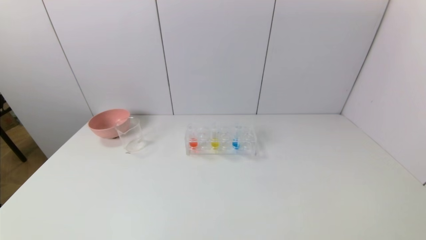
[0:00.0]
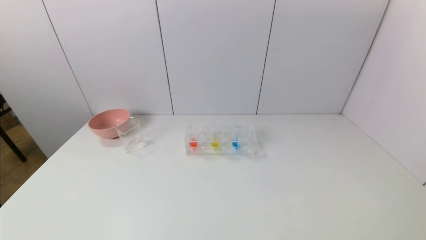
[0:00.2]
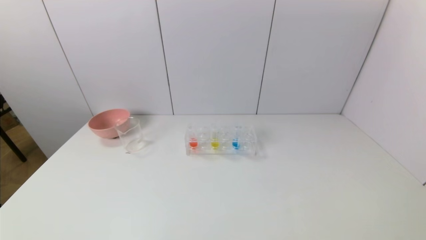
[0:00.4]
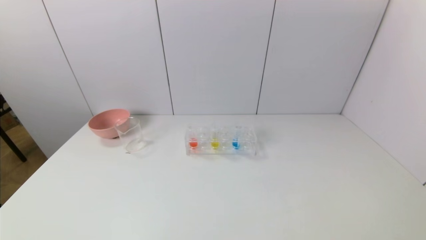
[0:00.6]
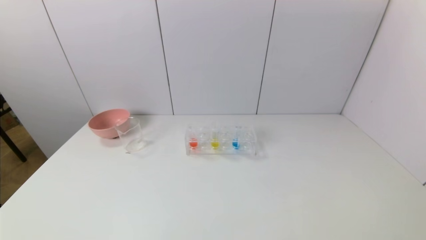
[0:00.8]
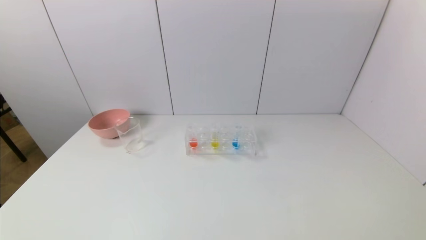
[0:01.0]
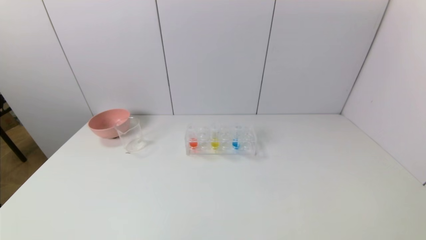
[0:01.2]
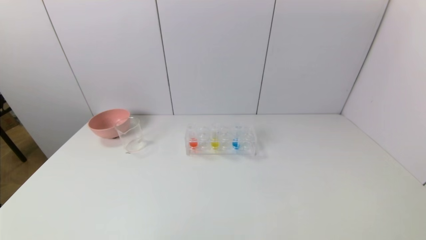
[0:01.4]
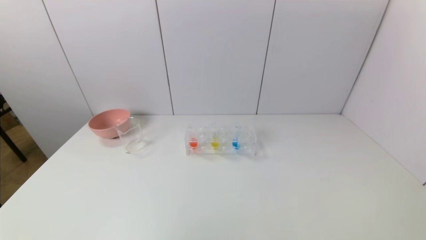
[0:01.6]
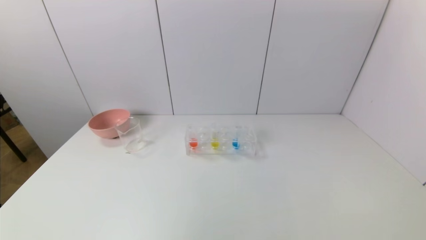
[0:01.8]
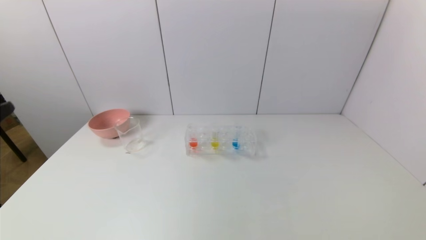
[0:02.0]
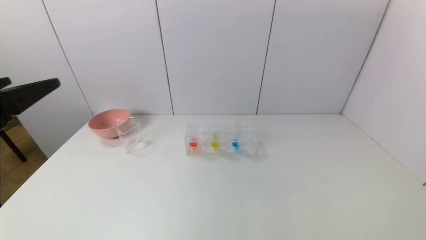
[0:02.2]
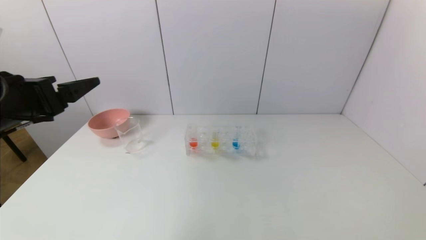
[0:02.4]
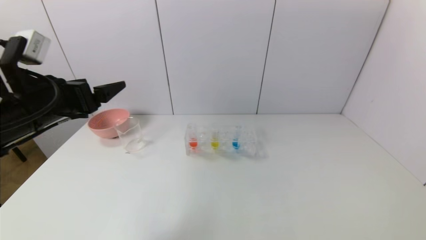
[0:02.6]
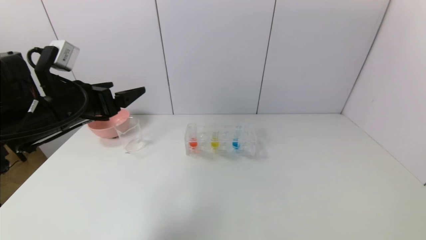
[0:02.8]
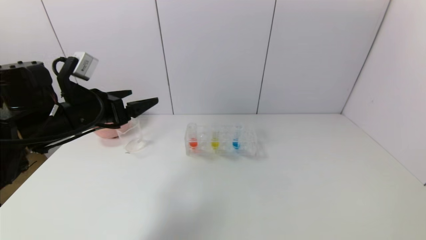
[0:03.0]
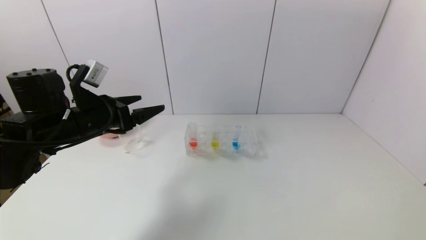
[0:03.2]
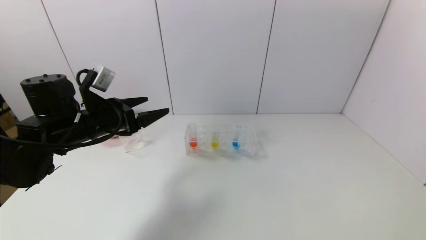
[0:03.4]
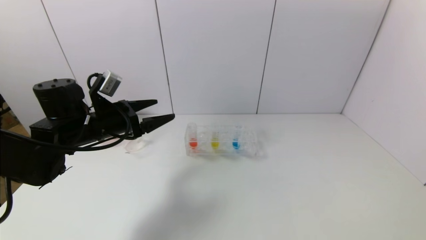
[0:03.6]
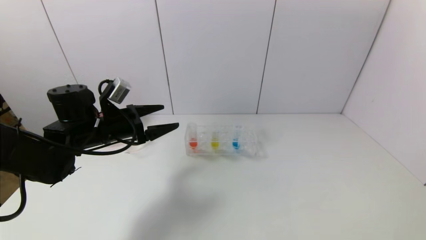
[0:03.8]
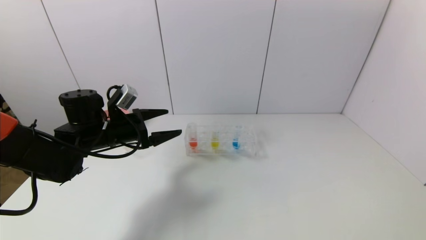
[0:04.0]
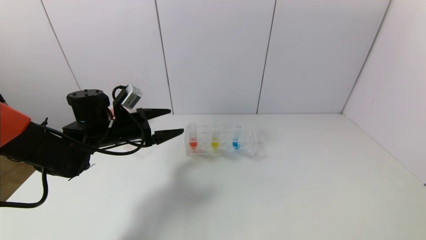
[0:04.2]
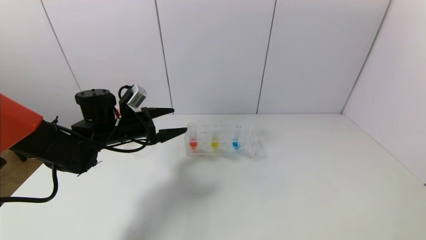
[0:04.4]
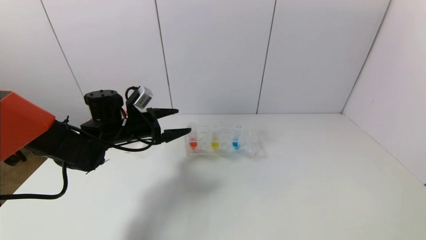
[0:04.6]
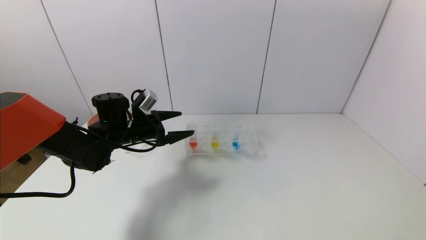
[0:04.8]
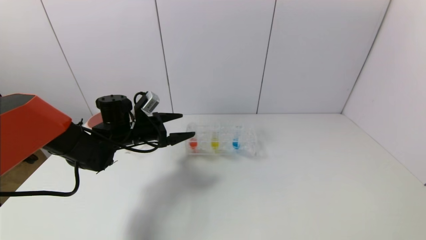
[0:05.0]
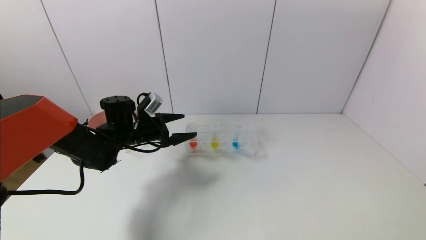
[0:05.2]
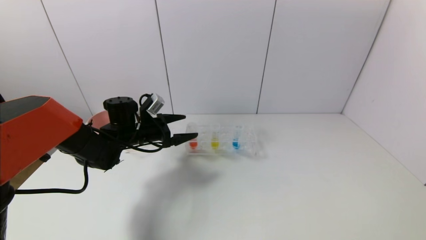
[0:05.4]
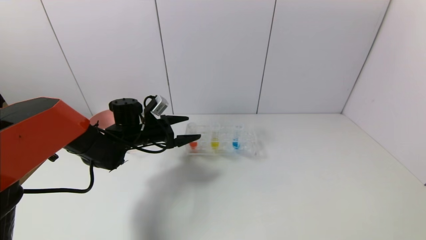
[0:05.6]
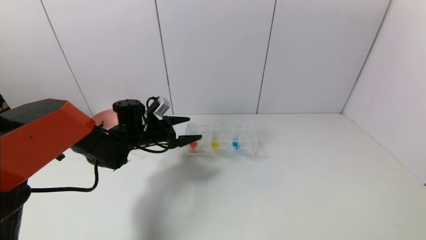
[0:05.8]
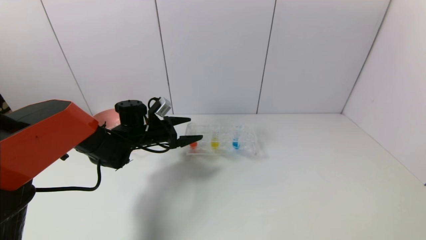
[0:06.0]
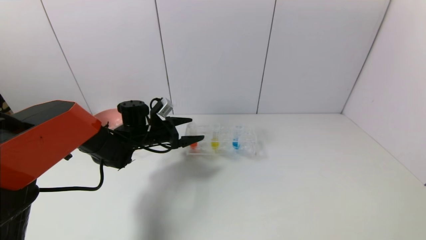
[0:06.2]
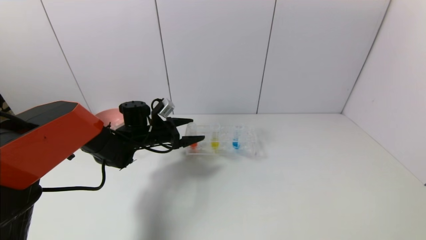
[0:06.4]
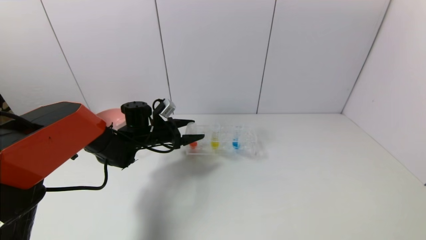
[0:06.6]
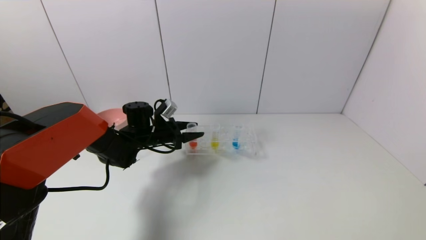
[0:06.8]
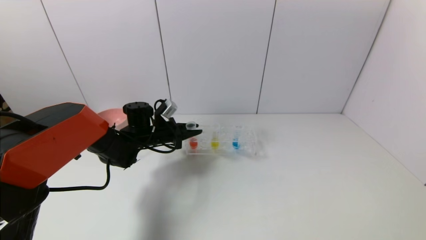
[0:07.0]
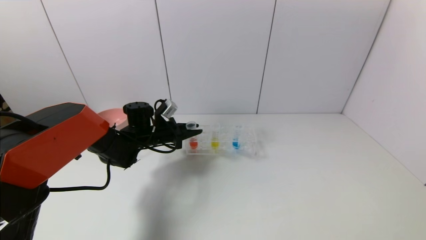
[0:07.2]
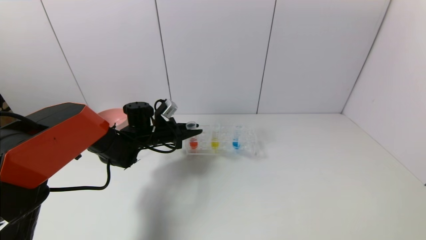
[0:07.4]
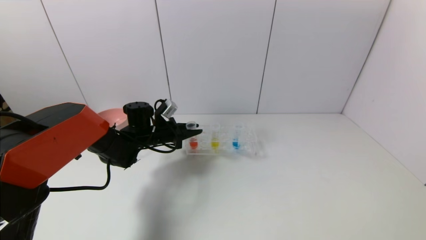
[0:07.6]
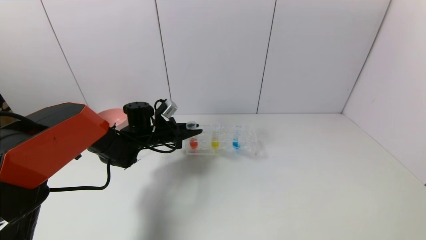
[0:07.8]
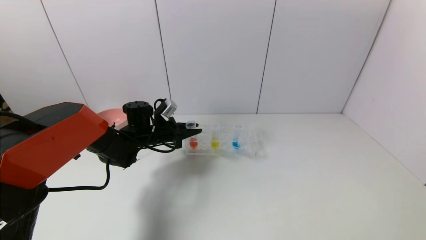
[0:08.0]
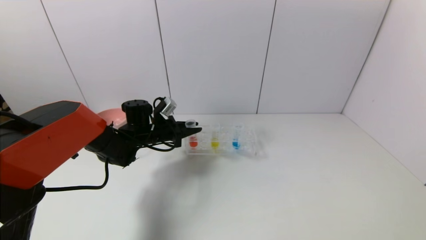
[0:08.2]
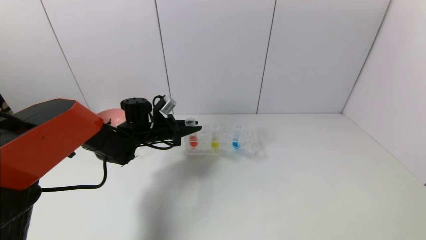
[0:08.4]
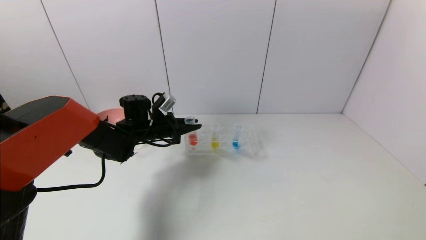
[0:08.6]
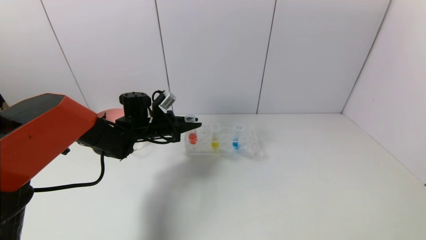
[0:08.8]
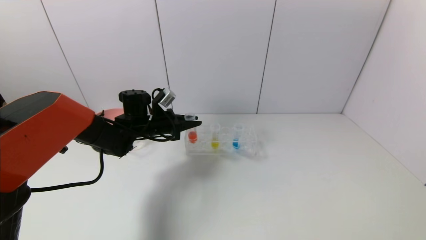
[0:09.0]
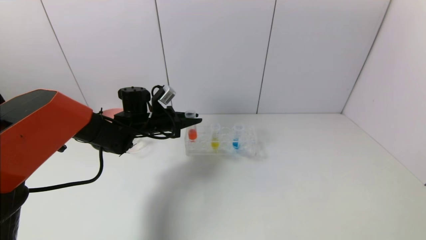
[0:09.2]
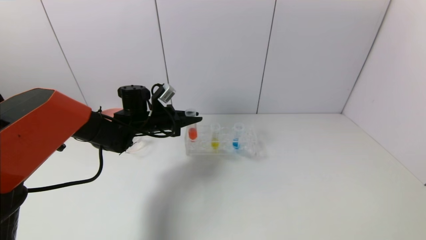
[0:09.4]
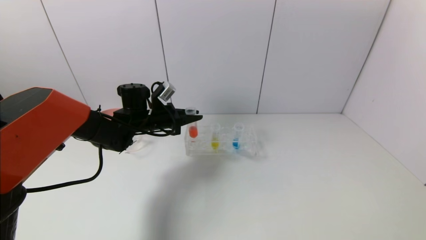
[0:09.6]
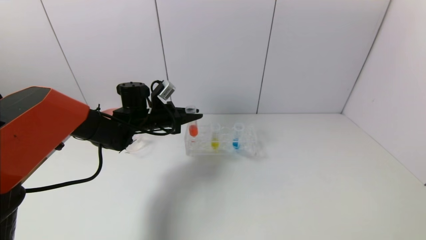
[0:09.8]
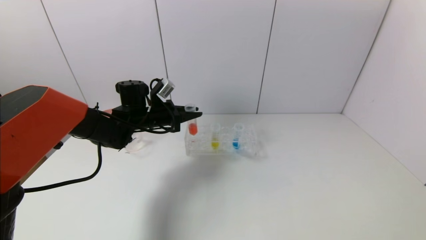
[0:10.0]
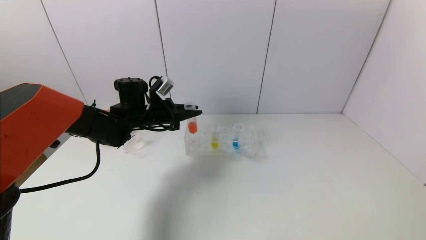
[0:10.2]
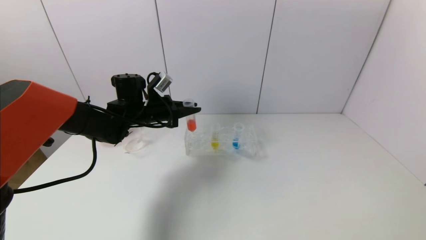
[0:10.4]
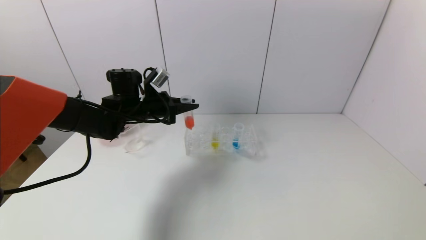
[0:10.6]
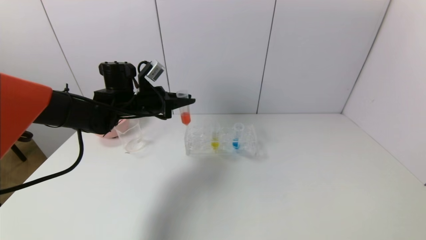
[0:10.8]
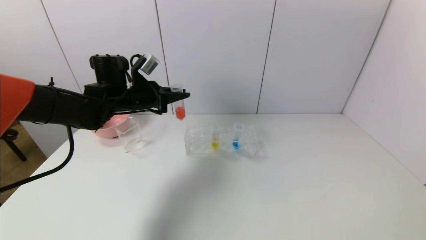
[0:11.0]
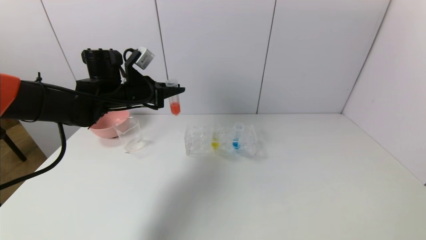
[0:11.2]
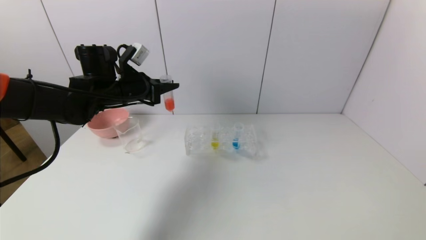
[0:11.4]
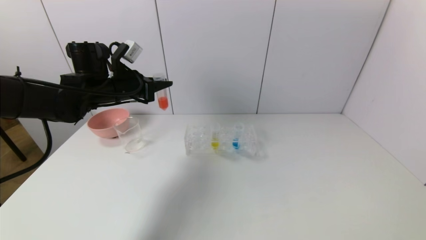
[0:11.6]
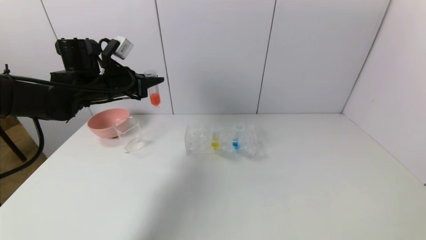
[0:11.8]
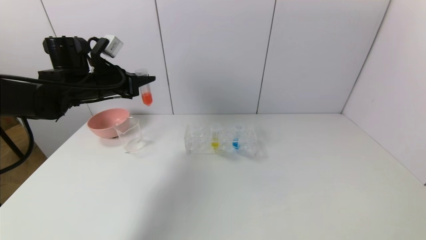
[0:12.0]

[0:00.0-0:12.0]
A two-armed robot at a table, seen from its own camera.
Task of the whole recording: pick up the test tube with yellow pigment and the test tube with red pigment by grippers and pour them into the beaker.
Step, 0:00.0 to 0:07.2: Grasp the red reagent with the left gripper.
0:01.6 to 0:03.0: The left gripper heads forward, covering approximately 30 cm.
0:03.0 to 0:04.4: The left gripper is displaced forward and downward by approximately 10 cm.
0:04.4 to 0:06.0: The left gripper moves forward, approximately 5 cm.
0:06.0 to 0:07.6: The left gripper closes up.
0:07.6 to 0:09.0: The grippers stay close to where they were, moving slightly.
0:09.0 to 0:10.4: The grippers stay close to where they were, moving slightly.
0:10.4 to 0:12.0: The left gripper is displaced to the left and upward by roughly 10 cm.

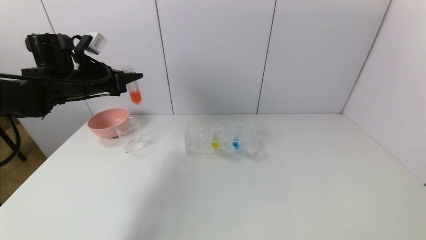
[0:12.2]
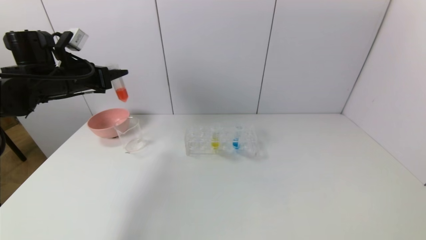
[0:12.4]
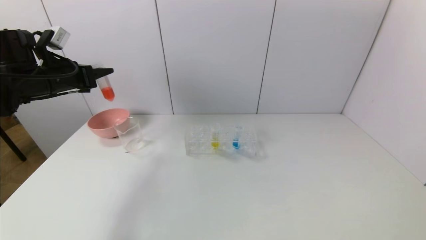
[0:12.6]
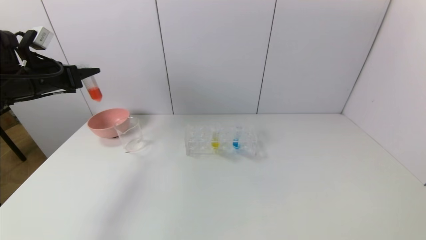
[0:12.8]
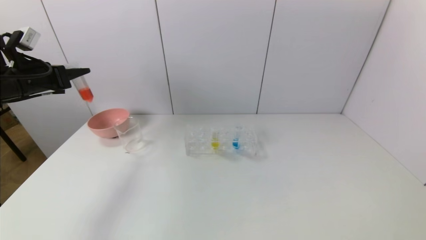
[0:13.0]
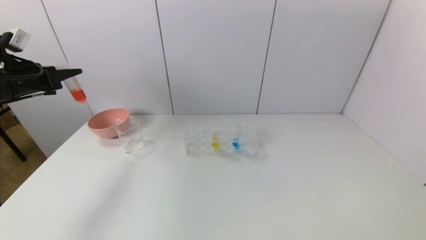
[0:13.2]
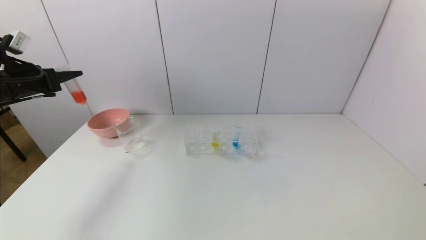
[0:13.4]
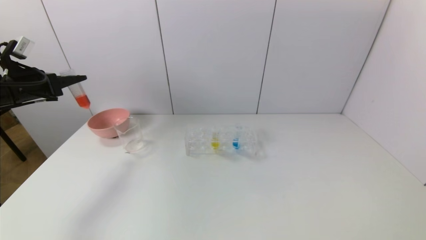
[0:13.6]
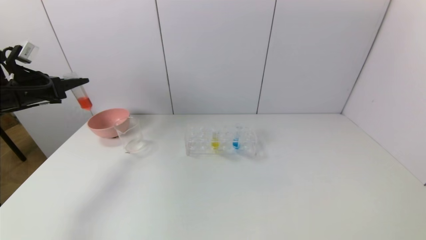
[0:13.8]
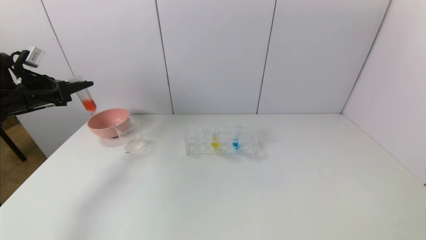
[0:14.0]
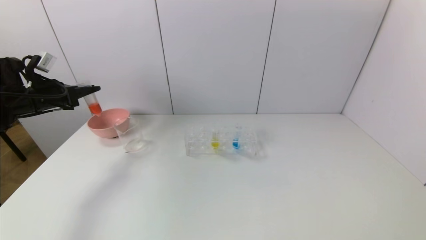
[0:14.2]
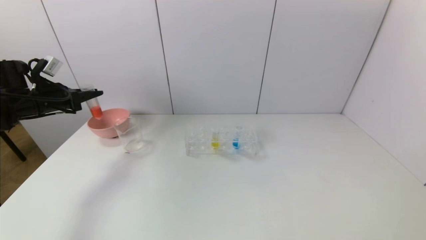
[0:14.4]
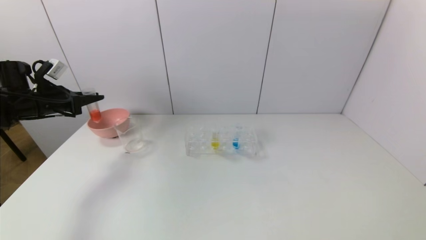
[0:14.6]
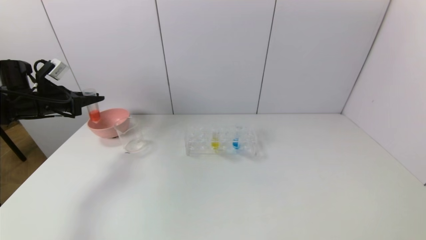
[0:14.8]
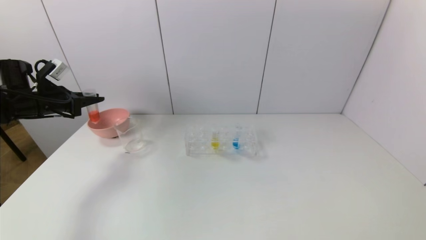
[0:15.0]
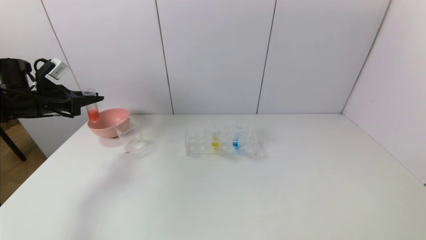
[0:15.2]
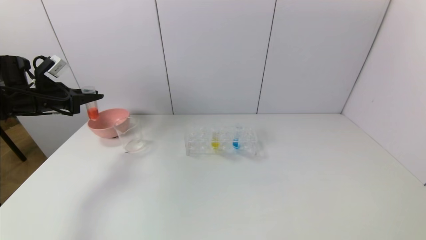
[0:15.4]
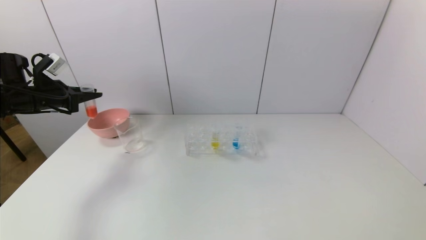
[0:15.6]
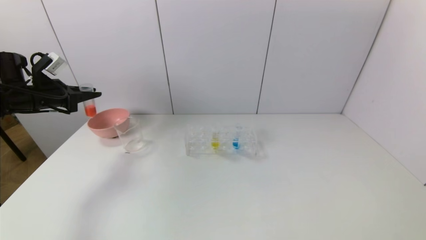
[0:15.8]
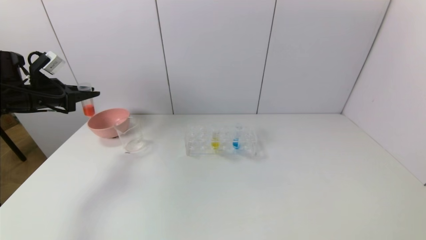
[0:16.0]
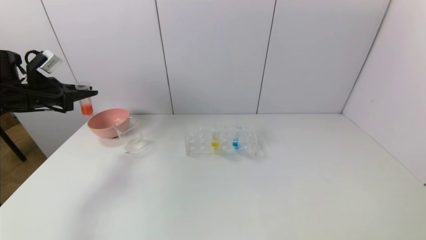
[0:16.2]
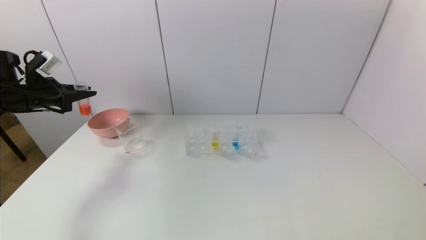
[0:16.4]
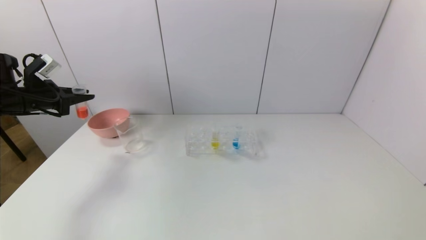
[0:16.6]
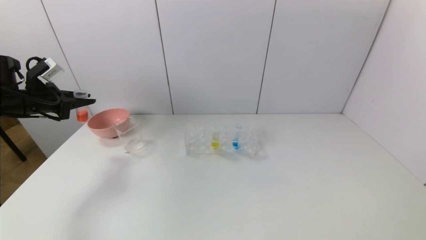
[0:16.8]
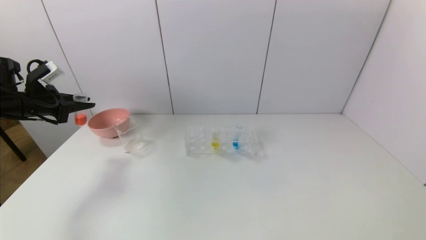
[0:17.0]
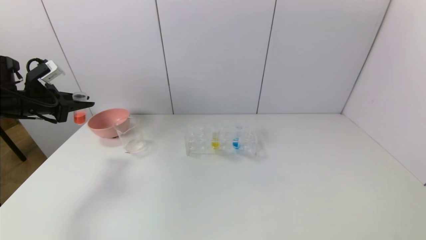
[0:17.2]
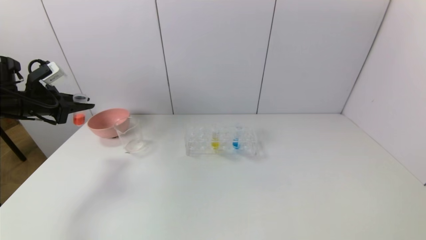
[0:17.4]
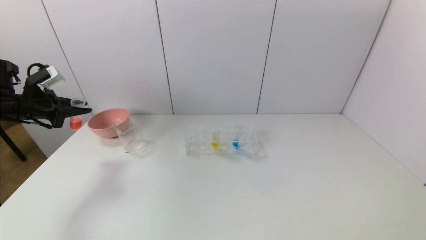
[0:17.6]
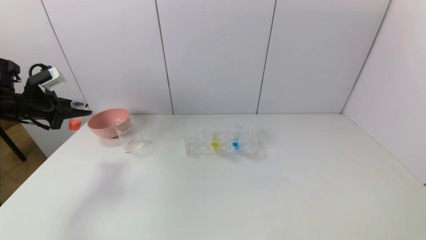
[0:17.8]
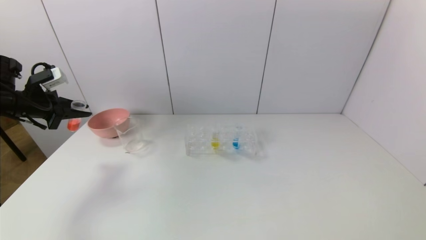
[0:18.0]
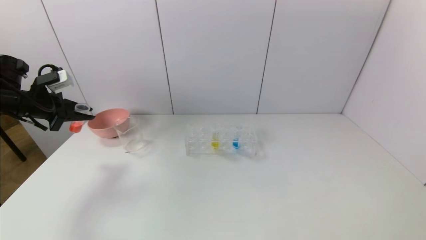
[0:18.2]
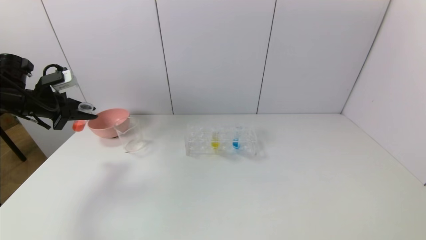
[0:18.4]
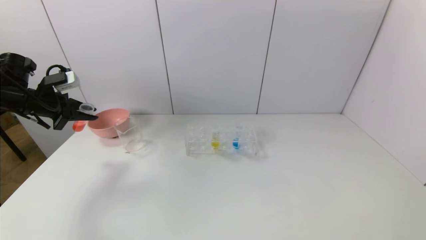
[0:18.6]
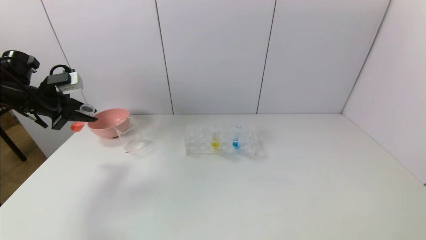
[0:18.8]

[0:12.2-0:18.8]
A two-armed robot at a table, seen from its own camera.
Task of the whole recording: pick up the test tube with yellow pigment and the test tube with red pigment by grippers and pour them into the beaker.
0:12.2 to 0:13.8: The left gripper heads to the left, covering roughly 15 cm.
0:13.8 to 0:15.4: The grippers make only small movements.
0:15.4 to 0:17.2: The grippers move only a little.
